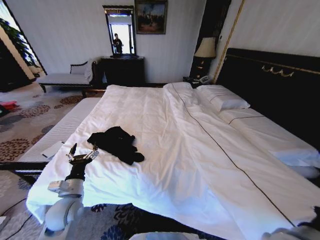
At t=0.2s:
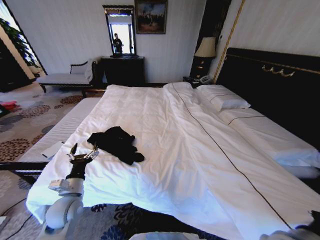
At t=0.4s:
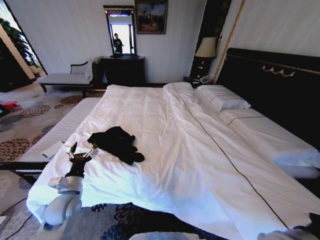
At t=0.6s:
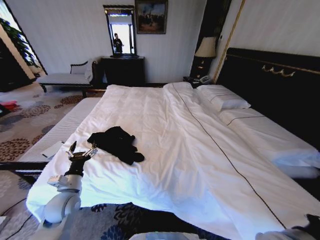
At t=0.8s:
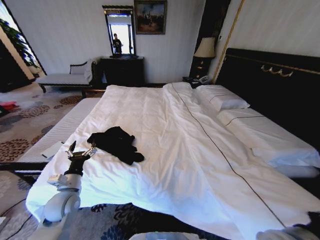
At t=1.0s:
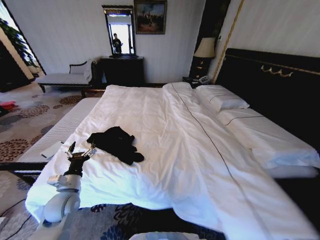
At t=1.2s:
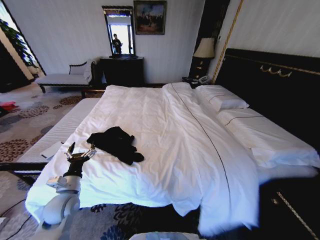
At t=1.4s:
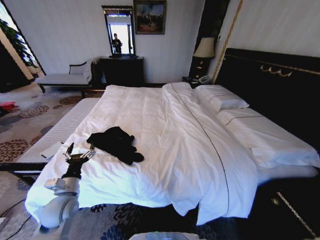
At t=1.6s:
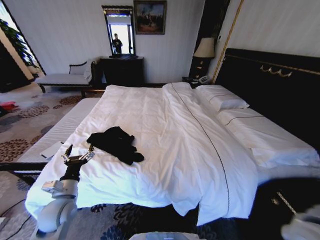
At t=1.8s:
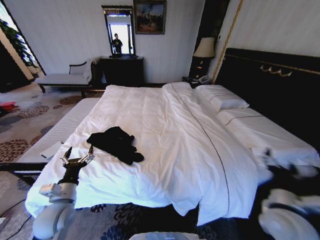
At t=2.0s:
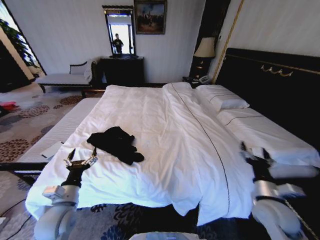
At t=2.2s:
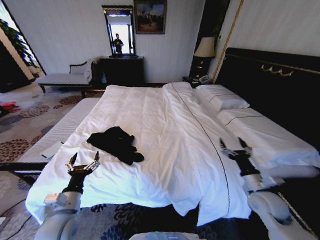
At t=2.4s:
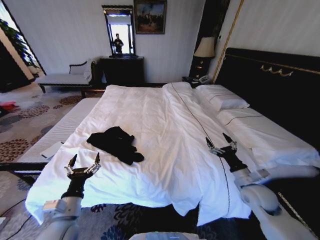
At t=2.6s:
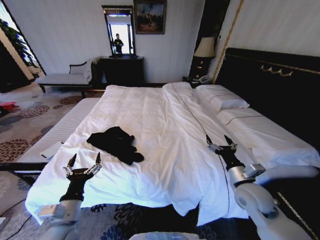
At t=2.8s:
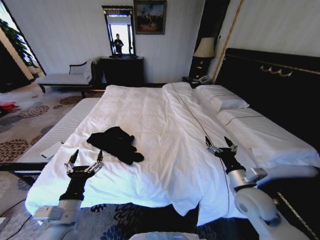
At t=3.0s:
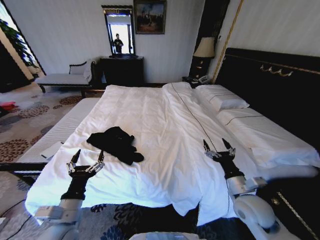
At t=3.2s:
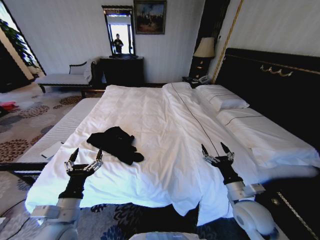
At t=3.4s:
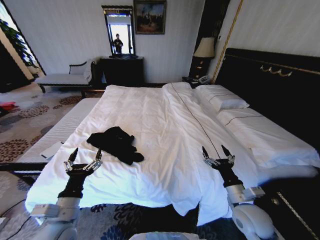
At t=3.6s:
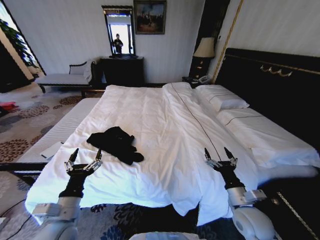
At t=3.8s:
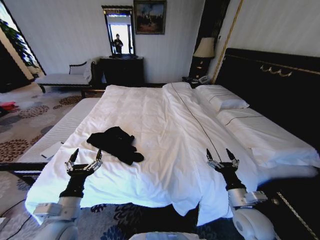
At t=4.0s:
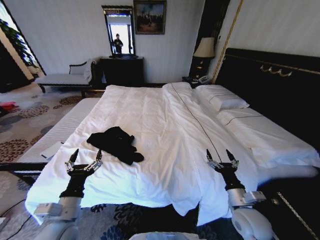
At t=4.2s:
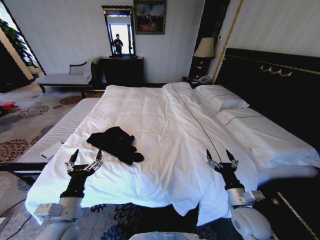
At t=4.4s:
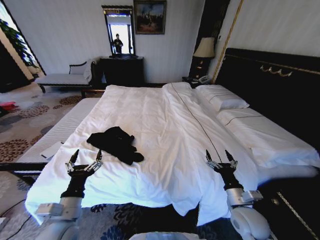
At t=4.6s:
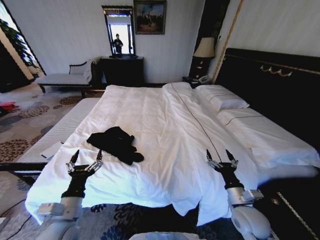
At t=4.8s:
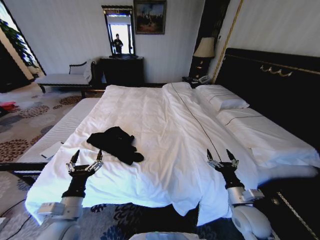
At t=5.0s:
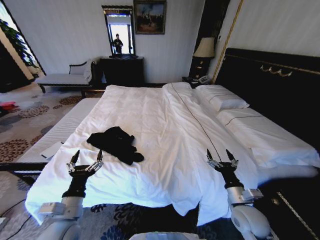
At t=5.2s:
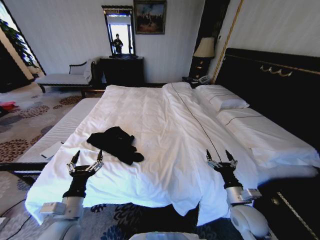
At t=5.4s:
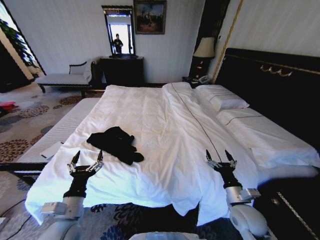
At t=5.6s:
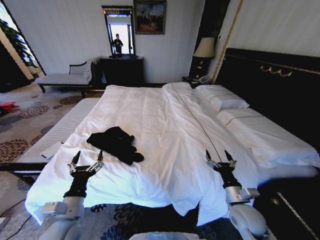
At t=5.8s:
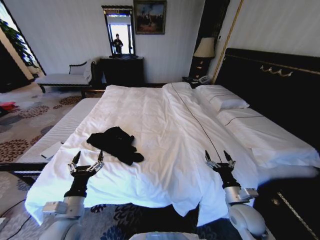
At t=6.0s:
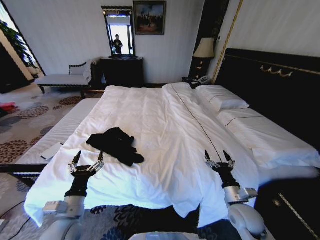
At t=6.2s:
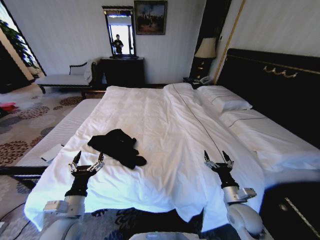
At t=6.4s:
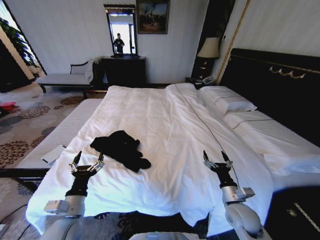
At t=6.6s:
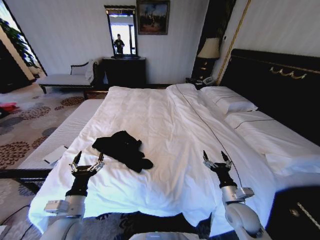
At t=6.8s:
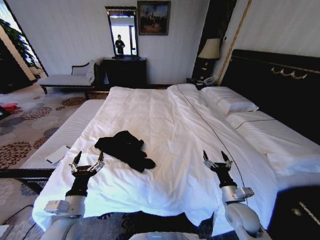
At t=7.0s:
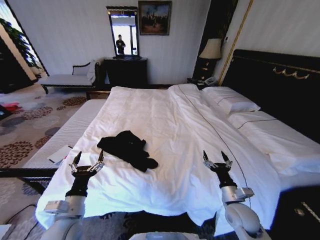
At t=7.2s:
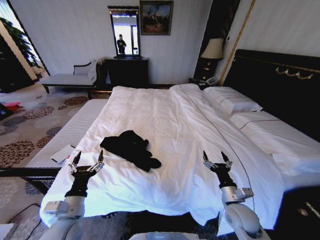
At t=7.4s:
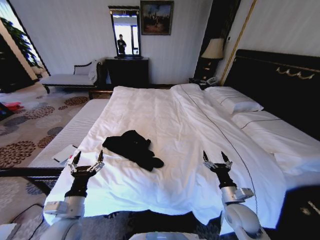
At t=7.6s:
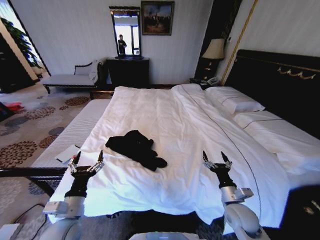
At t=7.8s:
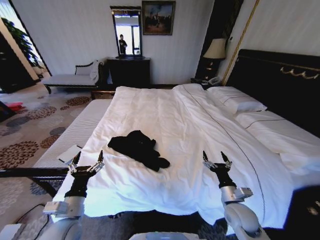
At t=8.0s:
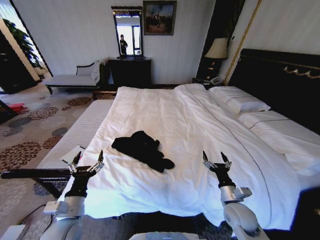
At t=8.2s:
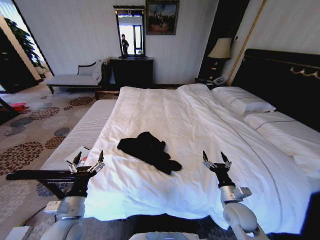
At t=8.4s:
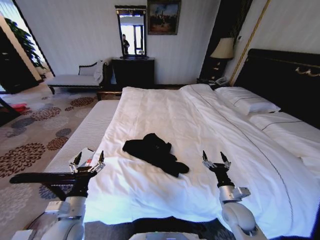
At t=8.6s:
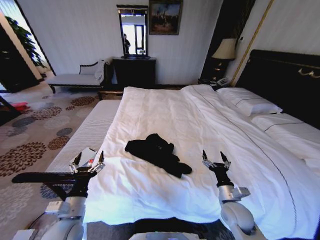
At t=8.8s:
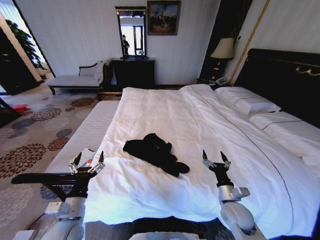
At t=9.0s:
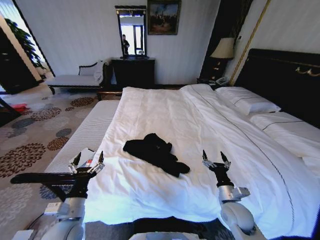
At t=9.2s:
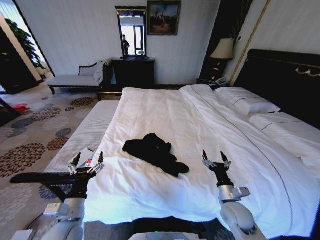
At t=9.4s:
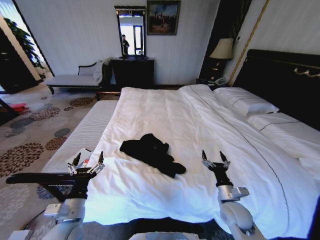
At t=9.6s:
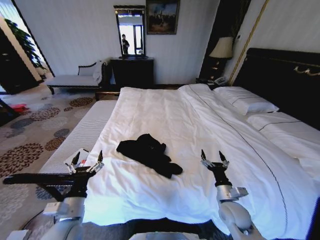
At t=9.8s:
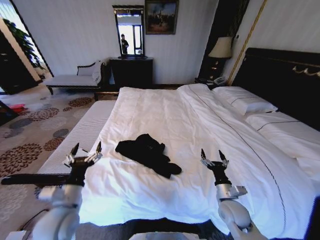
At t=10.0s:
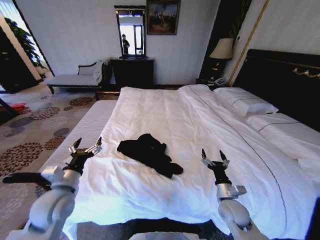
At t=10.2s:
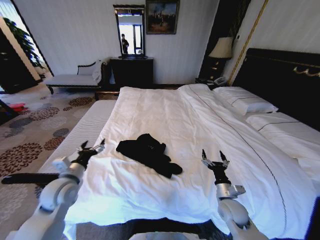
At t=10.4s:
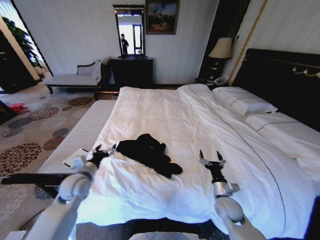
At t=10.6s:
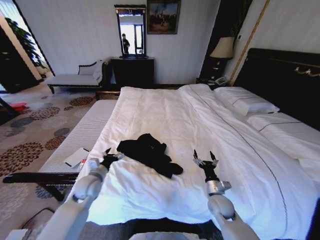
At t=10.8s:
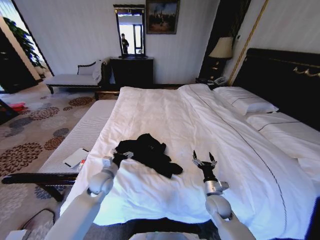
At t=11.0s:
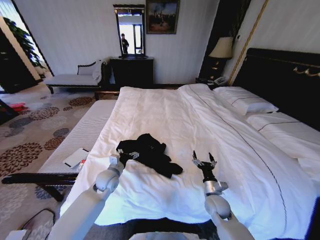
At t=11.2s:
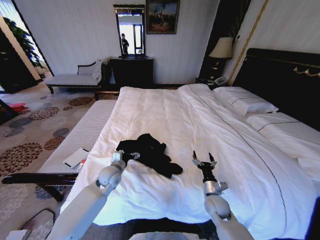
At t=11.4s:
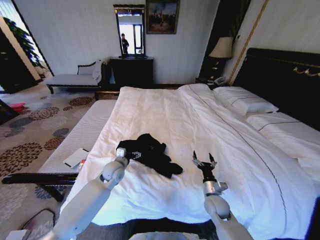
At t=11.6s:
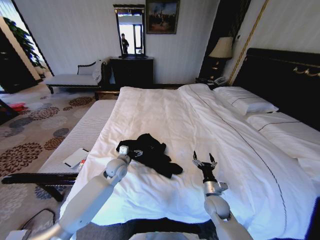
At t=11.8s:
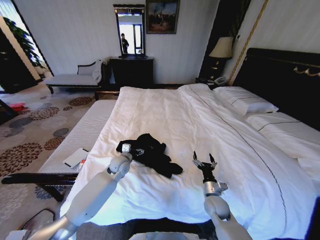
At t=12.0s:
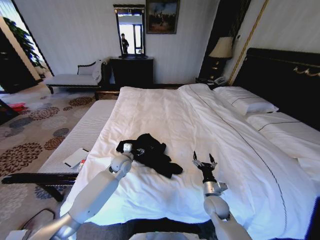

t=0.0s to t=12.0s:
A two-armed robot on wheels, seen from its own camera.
Task of the whole recording: Fold the clothes on the bed.
t=0.0s to t=1.6s: The right gripper moves approximately 5 cm, and opens its fingers.
t=1.6s to t=3.0s: The left gripper is displaced backward and to the right by roughly 10 cm. The right gripper is displaced forward and downward by roughly 10 cm.
t=3.0s to t=4.4s: The right gripper shifts by roughly 5 cm.
t=4.4s to t=6.0s: There are only small adjustments of the grippers.
t=9.0s to t=10.4s: The left gripper shifts some 15 cm forward.
t=10.4s to t=12.0s: The left gripper travels to the right and forward by approximately 20 cm.

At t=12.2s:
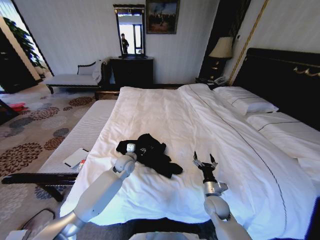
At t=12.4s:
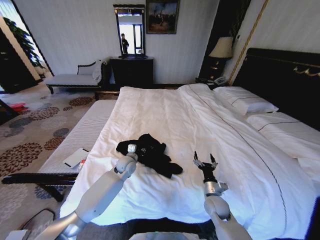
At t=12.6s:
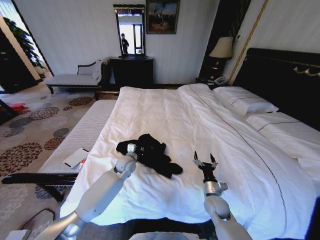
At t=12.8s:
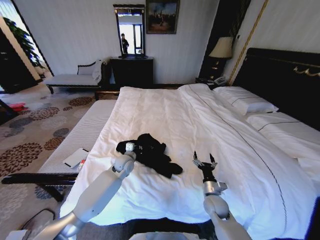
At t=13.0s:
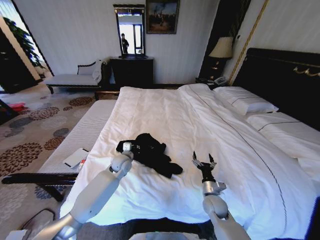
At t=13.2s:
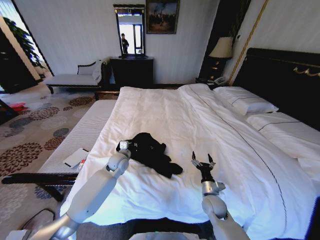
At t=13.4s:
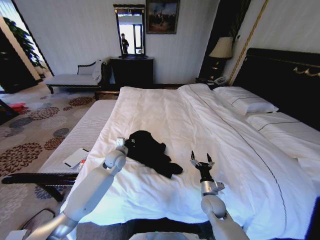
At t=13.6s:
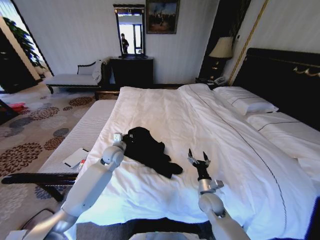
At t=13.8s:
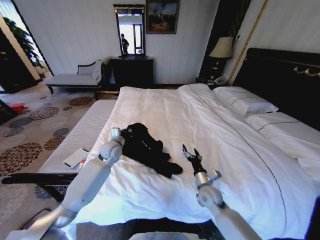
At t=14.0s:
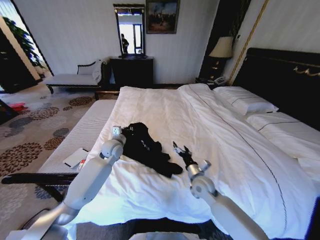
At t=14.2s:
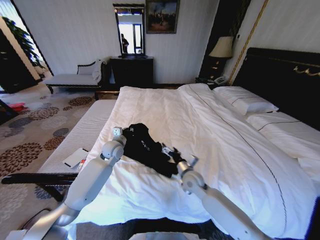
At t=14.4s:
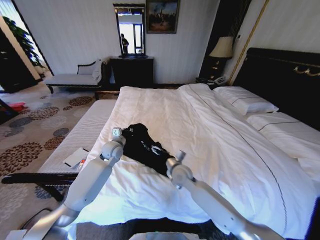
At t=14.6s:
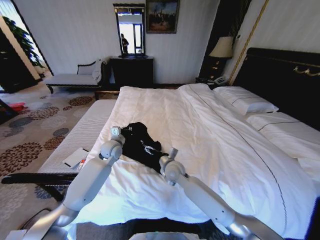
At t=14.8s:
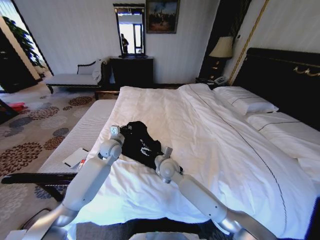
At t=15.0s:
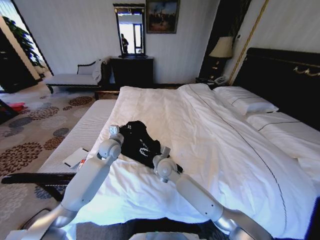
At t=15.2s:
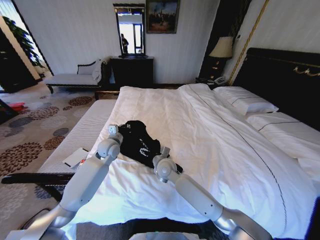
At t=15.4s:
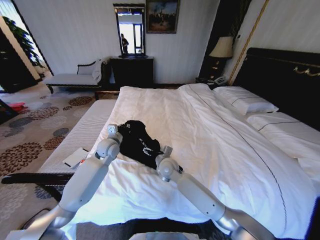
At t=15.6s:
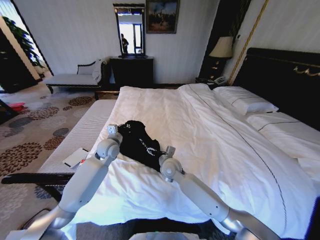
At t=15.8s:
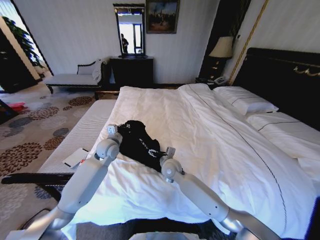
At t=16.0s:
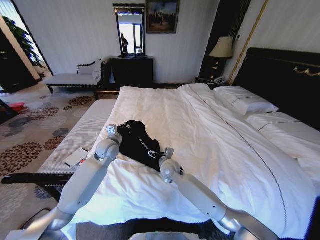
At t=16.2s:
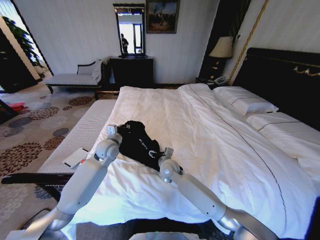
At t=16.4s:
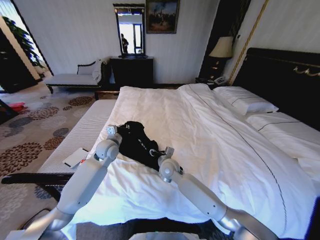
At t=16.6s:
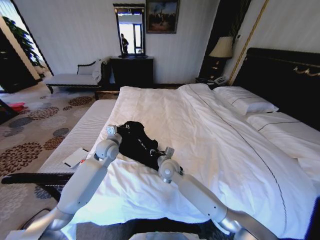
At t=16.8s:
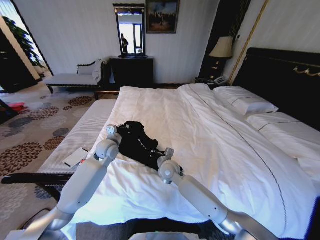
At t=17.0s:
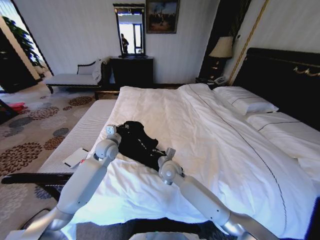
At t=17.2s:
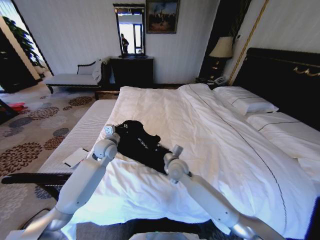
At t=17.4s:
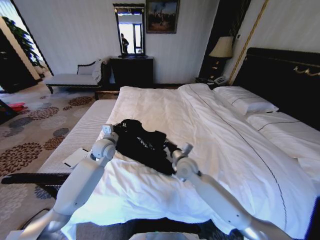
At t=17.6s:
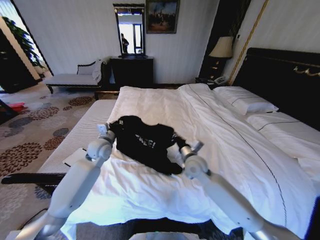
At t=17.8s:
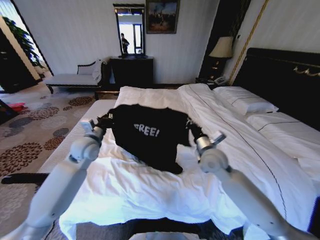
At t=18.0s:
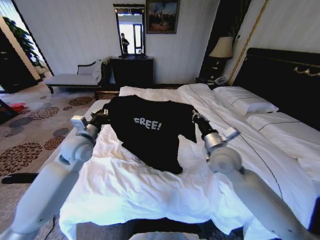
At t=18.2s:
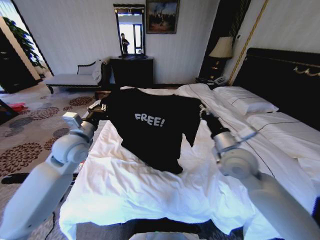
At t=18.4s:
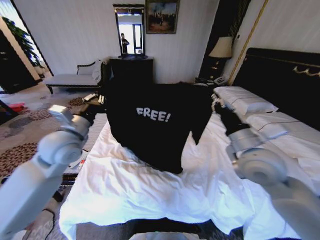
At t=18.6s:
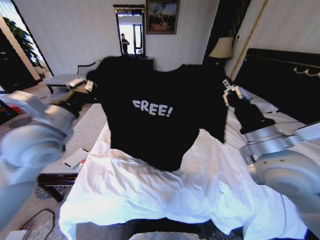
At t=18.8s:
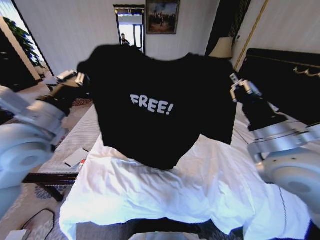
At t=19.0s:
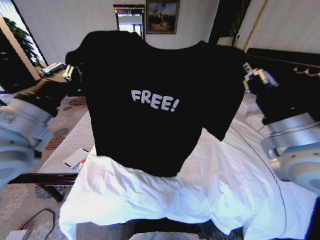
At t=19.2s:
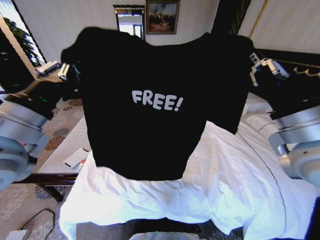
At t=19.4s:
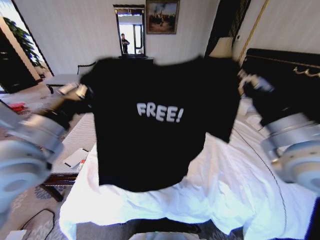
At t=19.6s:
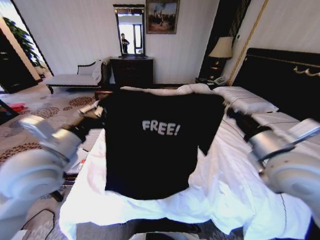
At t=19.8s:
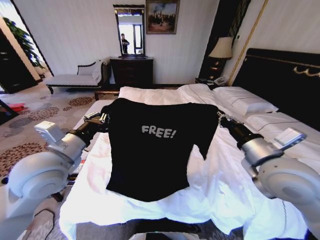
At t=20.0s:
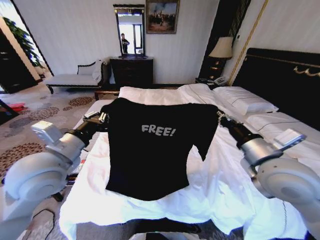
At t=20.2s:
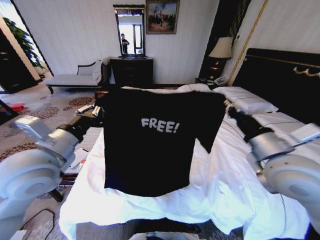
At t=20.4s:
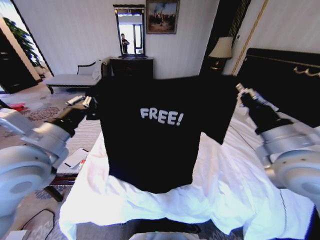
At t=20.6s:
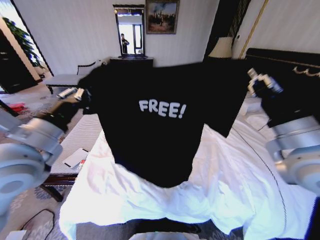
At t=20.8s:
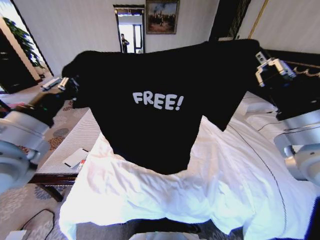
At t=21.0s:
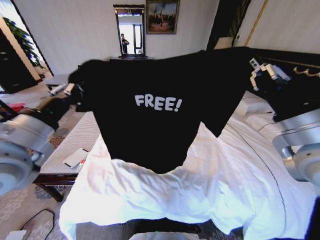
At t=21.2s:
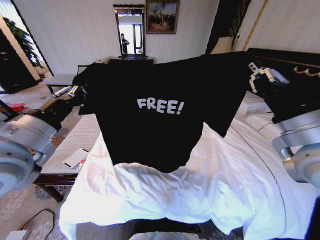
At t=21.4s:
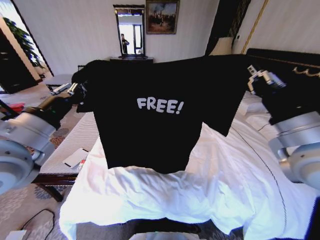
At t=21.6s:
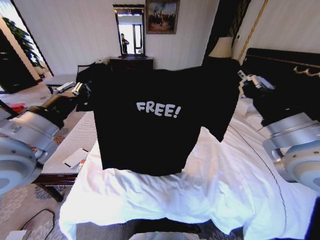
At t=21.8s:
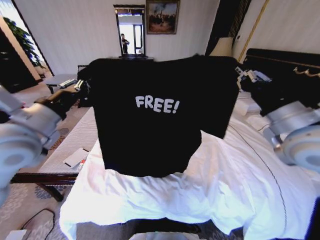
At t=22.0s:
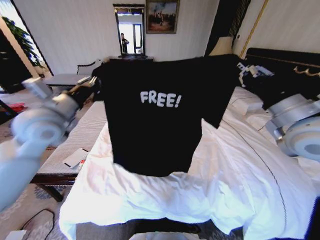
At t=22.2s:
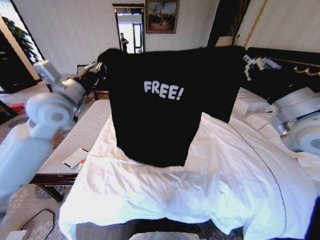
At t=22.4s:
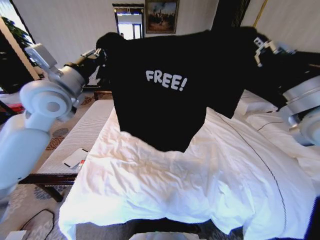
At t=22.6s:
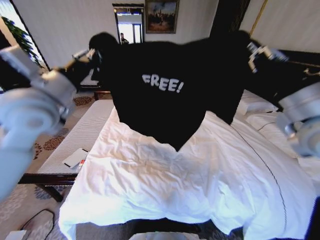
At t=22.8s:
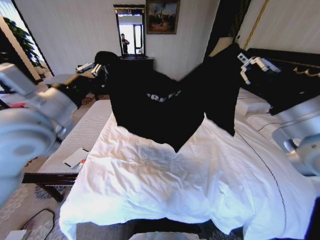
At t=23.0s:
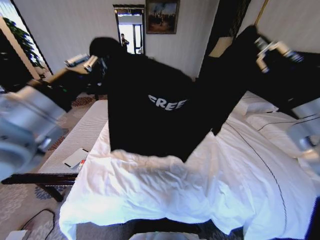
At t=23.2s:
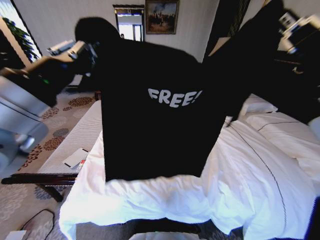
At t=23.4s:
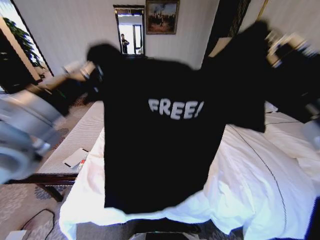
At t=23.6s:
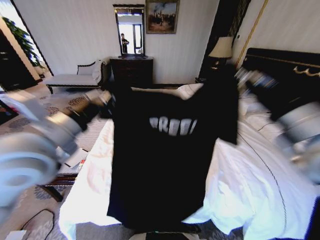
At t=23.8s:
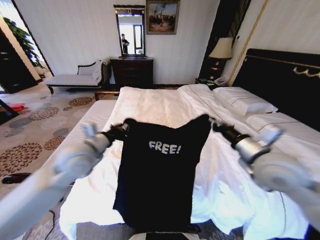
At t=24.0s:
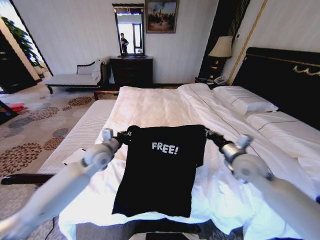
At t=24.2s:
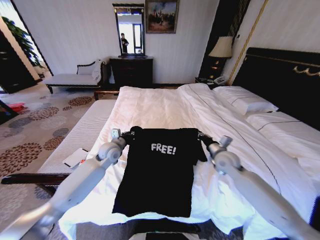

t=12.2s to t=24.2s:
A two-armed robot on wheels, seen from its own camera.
Task of the whole recording: Fold the clothes on the bed.
t=12.2s to t=13.8s: The left gripper is displaced upward and to the left by approximately 10 cm, and closes, while the right gripper moves about 5 cm.
t=13.8s to t=15.2s: The right gripper moves to the left, forward and upward, some 25 cm.
t=15.2s to t=16.6s: The right gripper closes its fingers.
t=16.6s to t=18.2s: The right gripper travels to the right and upward by some 25 cm, and closes up. Meanwhile the left gripper travels upward, backward and to the left by about 15 cm.
t=18.2s to t=19.8s: Both grippers move backward, some 10 cm.
t=19.8s to t=21.2s: Both grippers travel together upward, approximately 5 cm.
t=21.2s to t=22.6s: The left gripper heads forward, covering about 10 cm.
t=22.6s to t=24.2s: The left gripper heads downward, covering roughly 25 cm. Meanwhile the right gripper goes some 30 cm downward and forward.
